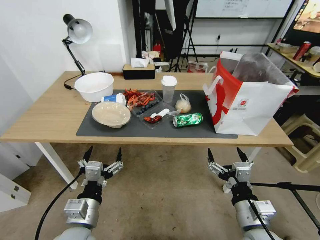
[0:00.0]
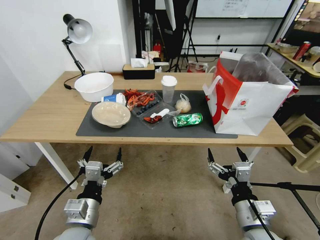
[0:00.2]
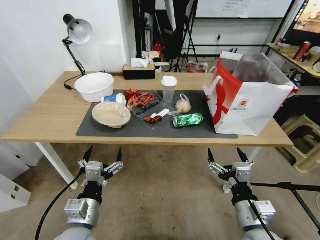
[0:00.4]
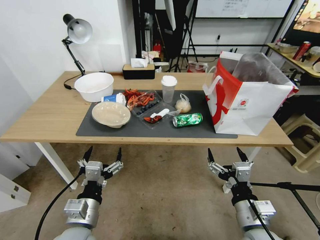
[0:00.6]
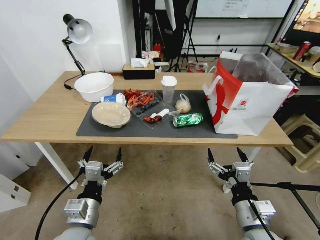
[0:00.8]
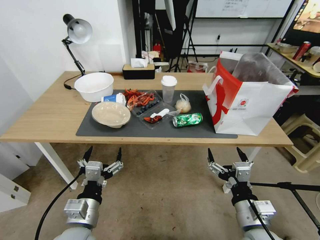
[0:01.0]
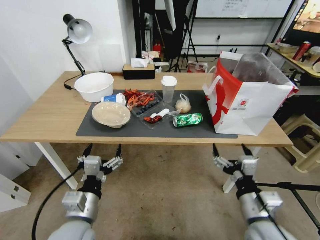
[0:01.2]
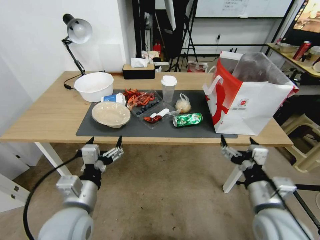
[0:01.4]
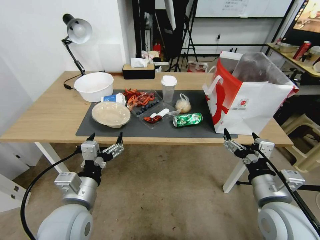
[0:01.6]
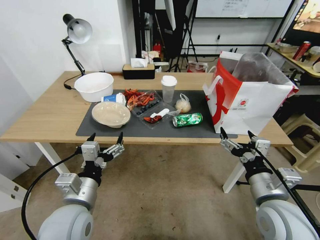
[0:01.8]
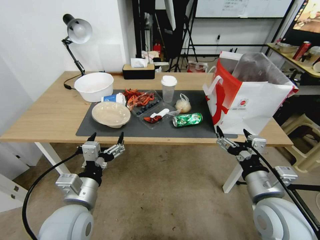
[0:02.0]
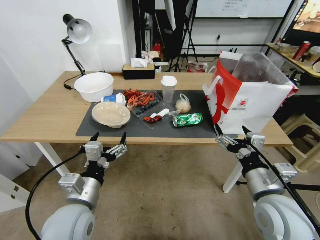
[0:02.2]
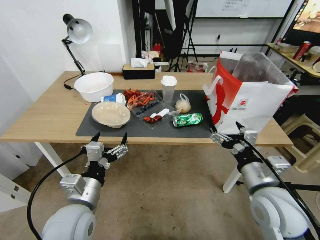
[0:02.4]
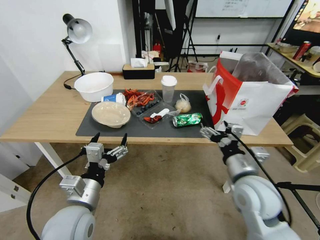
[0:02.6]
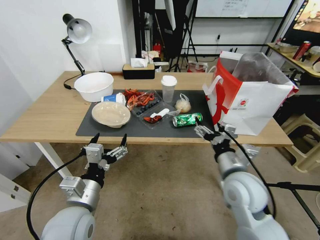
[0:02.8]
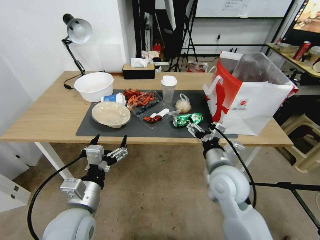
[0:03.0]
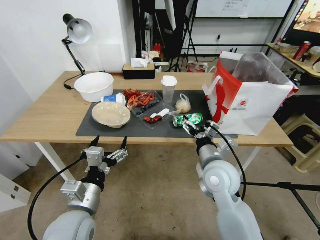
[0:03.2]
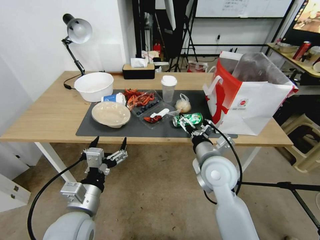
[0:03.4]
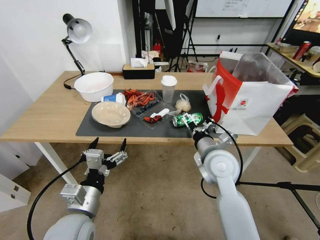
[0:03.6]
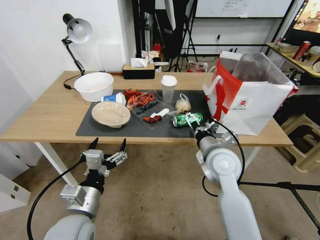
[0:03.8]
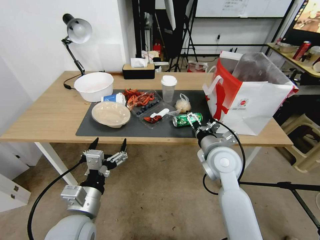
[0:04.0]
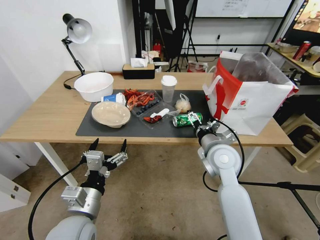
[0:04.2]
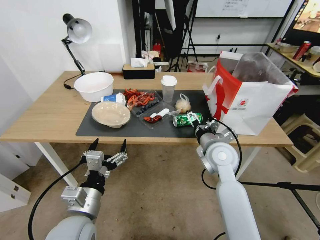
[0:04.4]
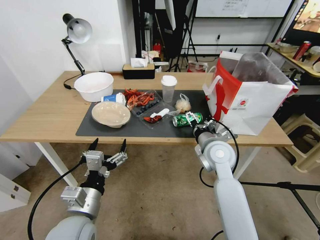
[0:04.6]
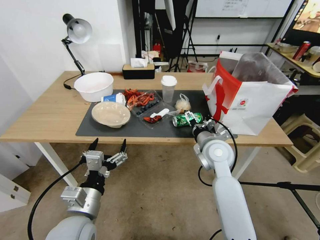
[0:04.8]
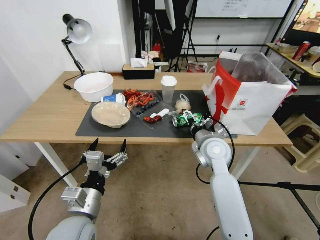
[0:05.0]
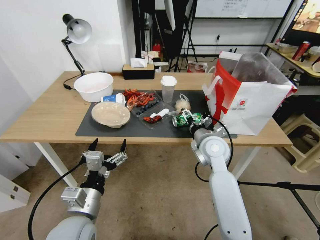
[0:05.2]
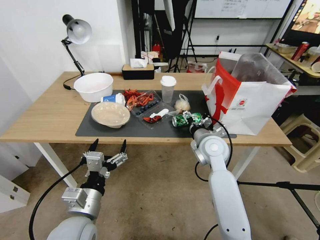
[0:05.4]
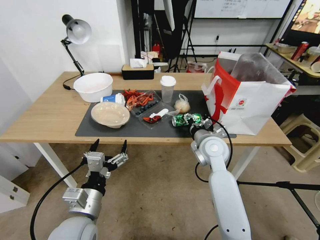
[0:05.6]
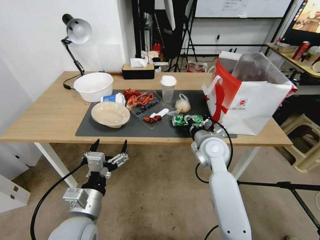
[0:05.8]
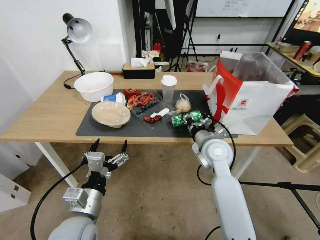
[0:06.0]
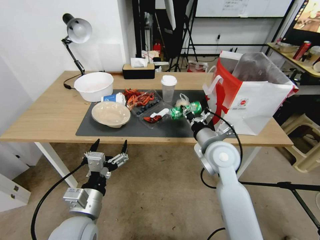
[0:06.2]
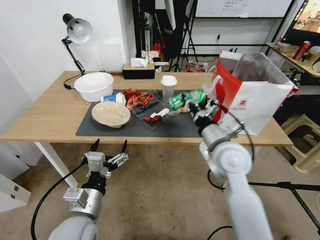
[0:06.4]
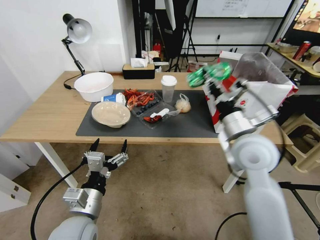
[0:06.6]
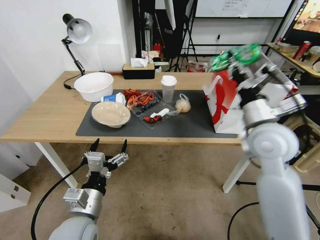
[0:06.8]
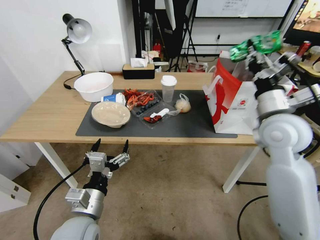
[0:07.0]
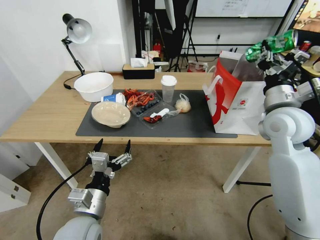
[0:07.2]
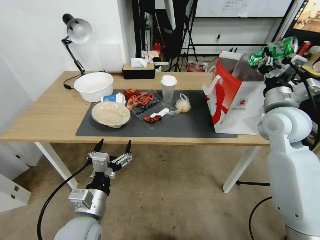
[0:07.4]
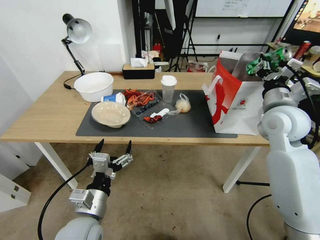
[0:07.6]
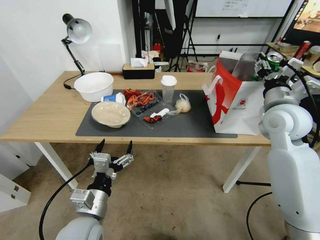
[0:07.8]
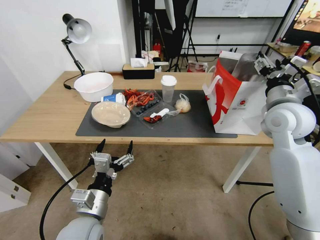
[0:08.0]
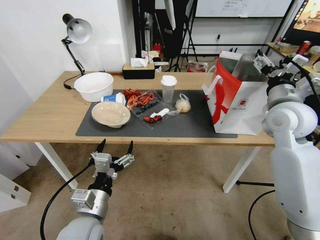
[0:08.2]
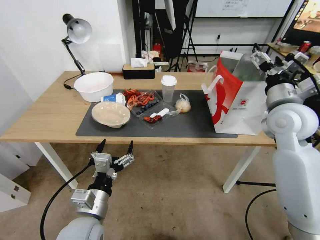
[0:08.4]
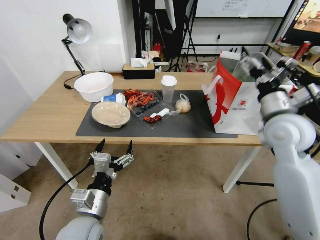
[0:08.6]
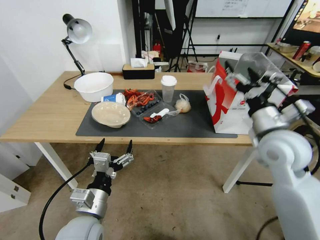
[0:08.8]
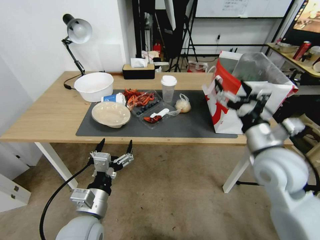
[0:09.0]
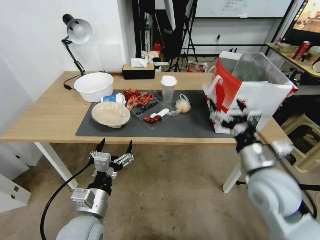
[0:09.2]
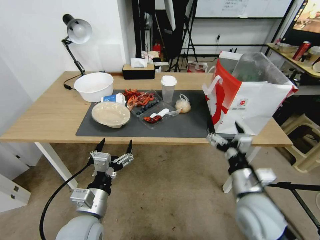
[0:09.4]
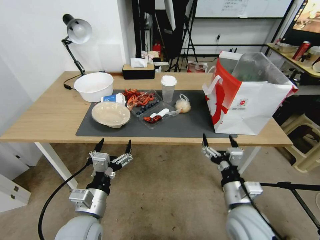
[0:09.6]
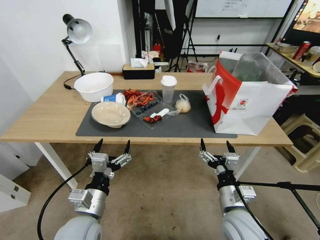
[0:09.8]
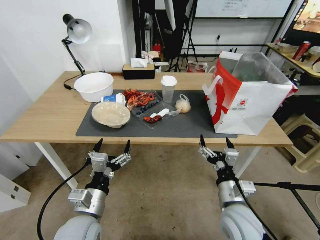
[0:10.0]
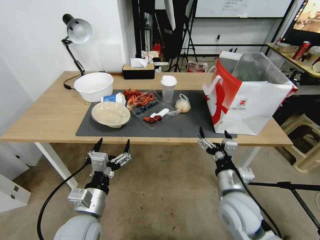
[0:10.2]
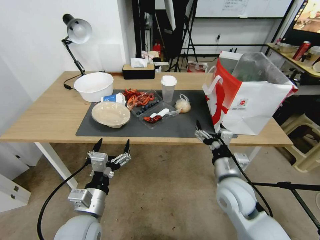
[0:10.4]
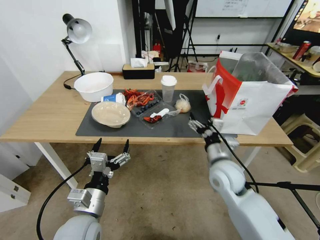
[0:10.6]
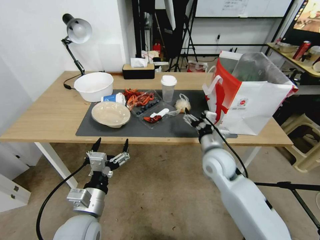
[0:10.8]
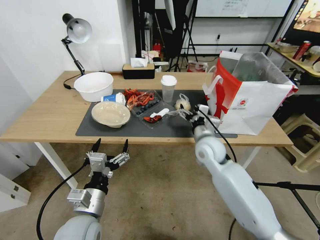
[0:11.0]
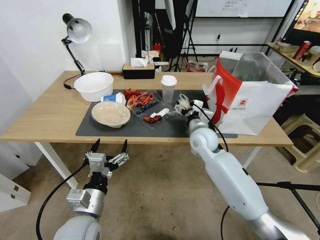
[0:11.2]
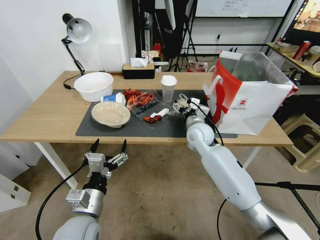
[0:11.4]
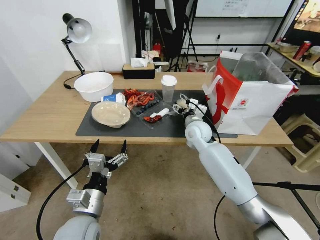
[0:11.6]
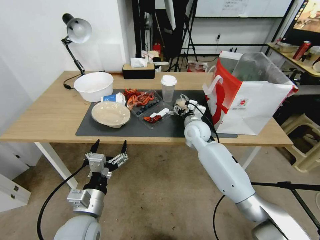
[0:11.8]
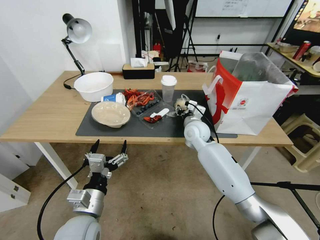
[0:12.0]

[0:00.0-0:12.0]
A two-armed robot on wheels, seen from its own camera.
0:01.6 to 0:03.0: The right gripper travels forward and to the left by roughly 15 cm.
0:03.0 to 0:04.4: The right gripper is displaced forward by roughly 10 cm.
0:04.4 to 0:06.0: The right gripper closes.
0:06.0 to 0:07.6: The right gripper shifts about 20 cm to the right and upward.
0:07.6 to 0:09.0: The right gripper heads backward, to the left and downward, covering about 15 cm, and opens up.
0:09.0 to 0:10.4: The right gripper is displaced downward and to the left by approximately 15 cm.
0:10.4 to 0:12.0: The right gripper moves forward, roughly 25 cm, and closes its fingers.

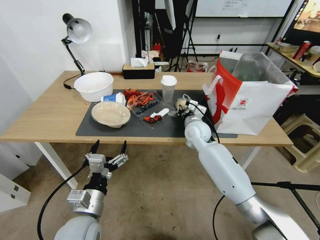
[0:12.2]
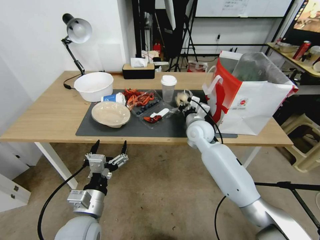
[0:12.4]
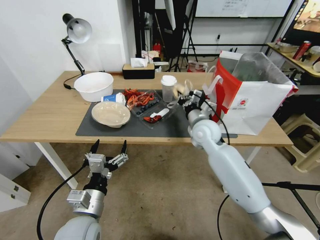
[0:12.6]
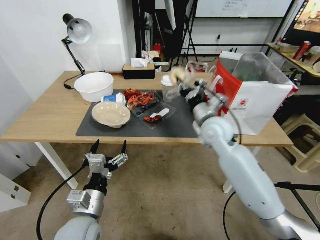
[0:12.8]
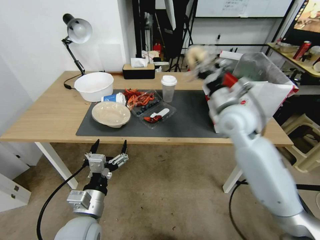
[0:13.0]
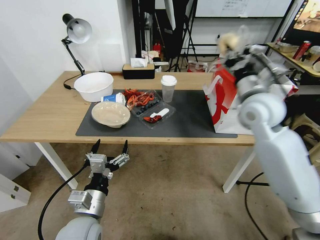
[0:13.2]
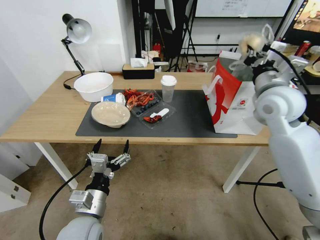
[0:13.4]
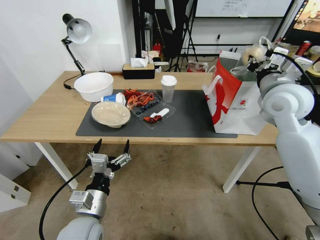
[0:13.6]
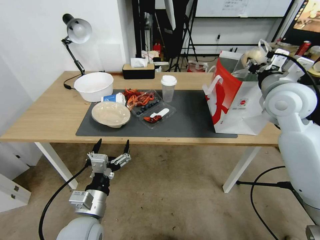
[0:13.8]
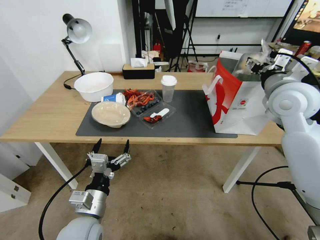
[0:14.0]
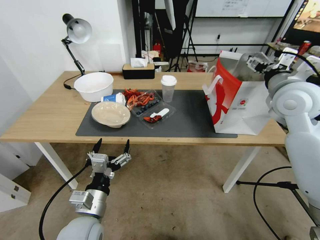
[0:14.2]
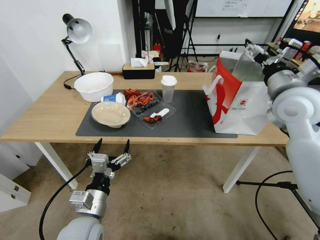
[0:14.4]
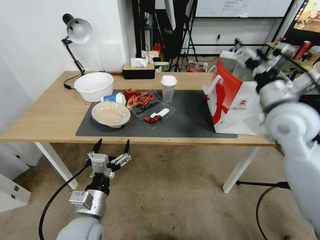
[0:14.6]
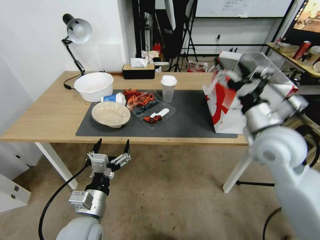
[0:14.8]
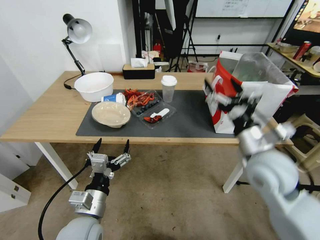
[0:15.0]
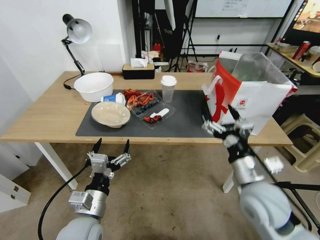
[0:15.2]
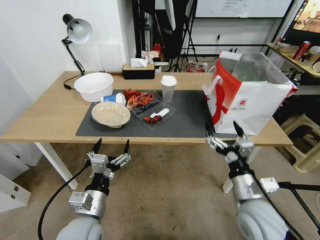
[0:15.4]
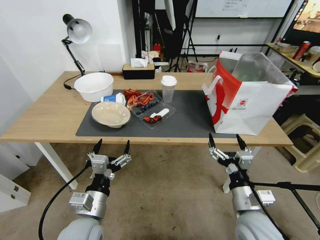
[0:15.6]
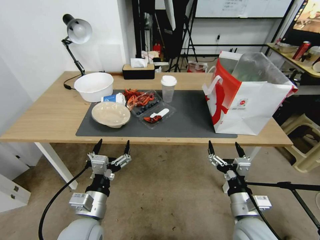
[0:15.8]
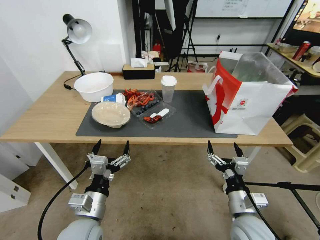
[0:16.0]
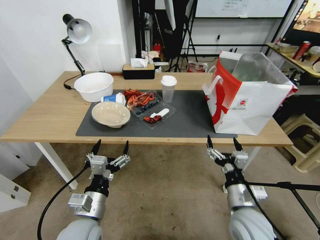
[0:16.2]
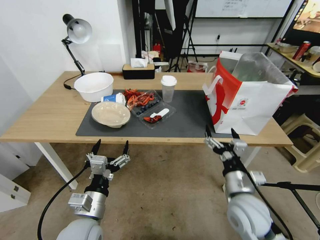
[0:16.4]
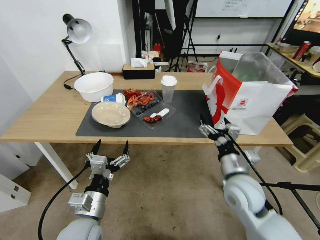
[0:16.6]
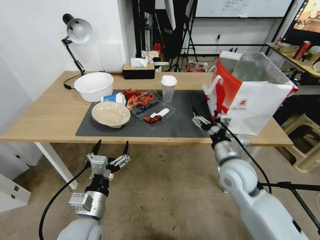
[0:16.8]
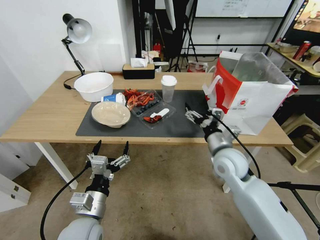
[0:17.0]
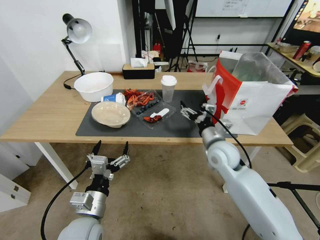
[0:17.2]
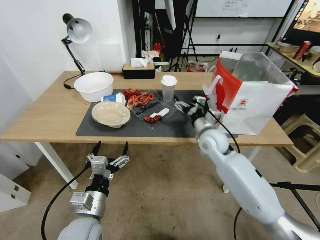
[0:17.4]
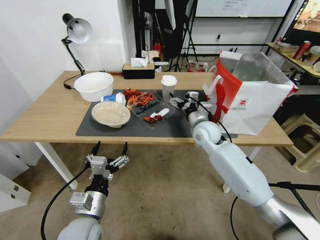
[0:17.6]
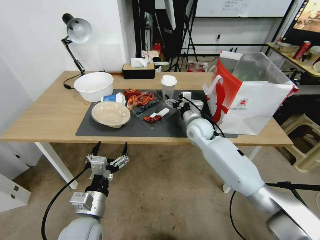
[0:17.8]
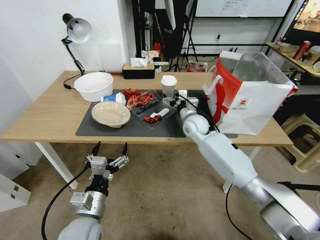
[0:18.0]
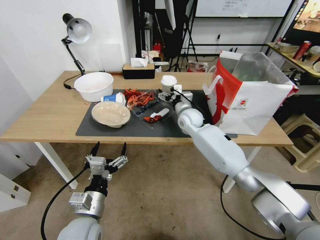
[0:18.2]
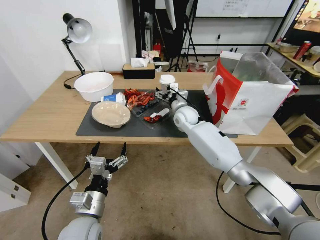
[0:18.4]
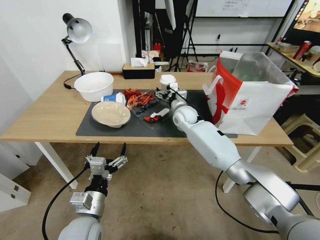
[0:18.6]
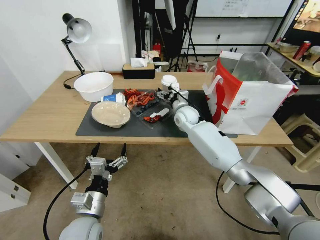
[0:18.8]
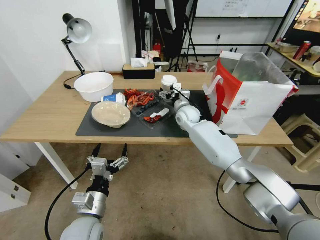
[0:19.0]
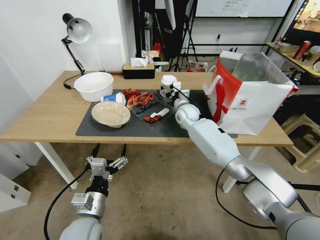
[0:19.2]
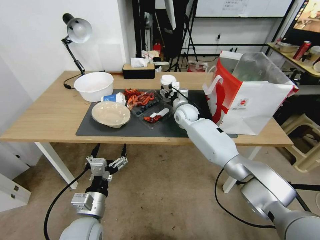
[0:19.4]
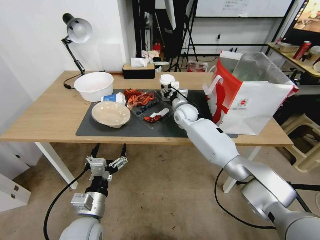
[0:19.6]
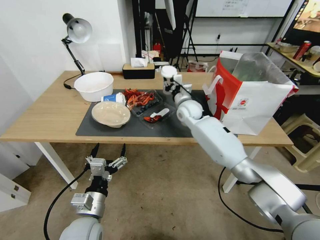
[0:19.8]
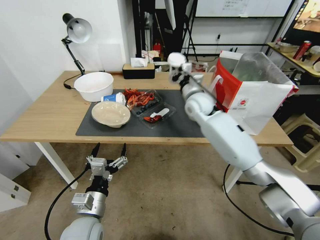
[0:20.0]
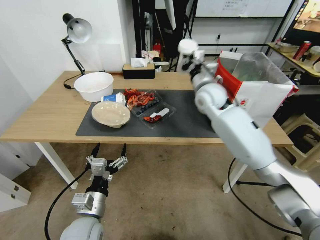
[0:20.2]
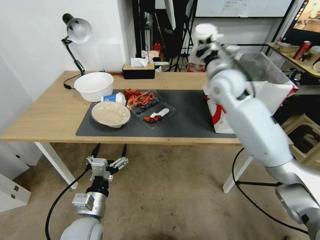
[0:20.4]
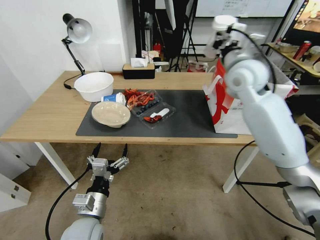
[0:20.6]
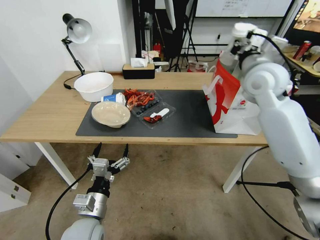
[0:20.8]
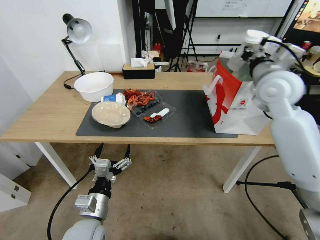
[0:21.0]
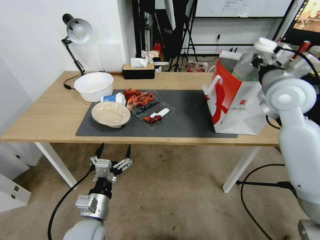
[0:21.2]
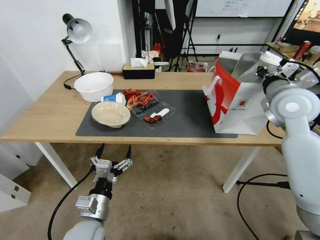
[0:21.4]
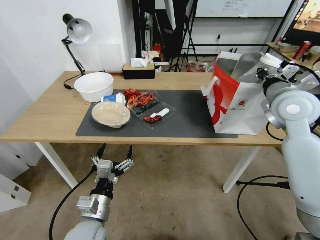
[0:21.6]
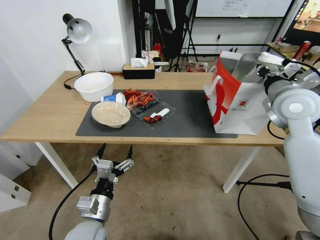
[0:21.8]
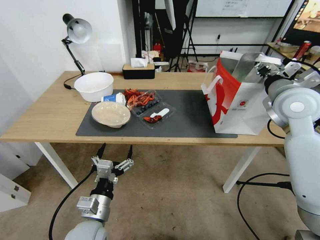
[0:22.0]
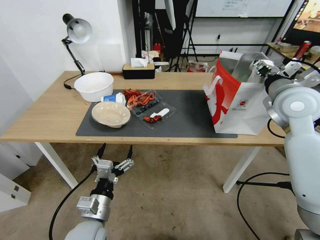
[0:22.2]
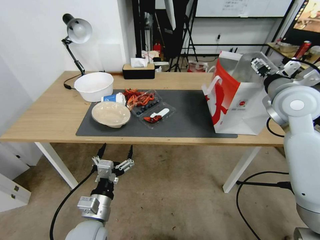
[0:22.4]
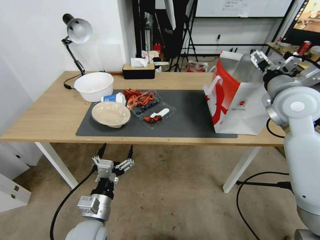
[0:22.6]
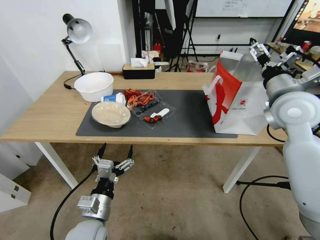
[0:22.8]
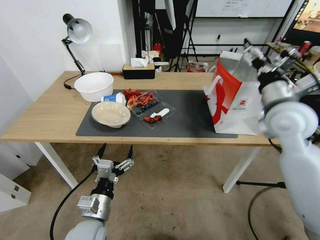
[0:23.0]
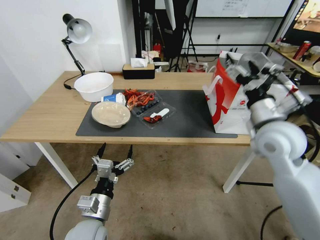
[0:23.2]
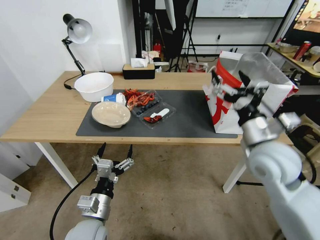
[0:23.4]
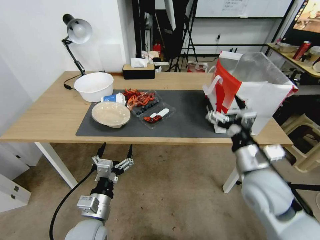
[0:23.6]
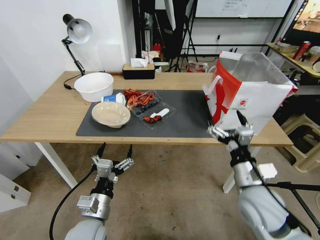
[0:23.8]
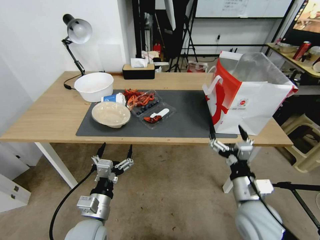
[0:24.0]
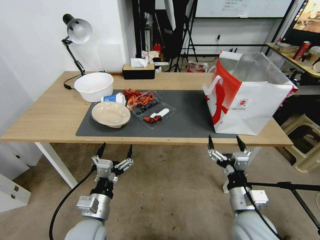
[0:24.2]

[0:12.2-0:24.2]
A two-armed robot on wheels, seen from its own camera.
0:12.2 to 0:13.8: The right gripper goes some 30 cm upward and to the right.
0:13.8 to 0:15.2: The right gripper shifts roughly 25 cm backward, downward and to the left, and opens up.
0:16.6 to 0:18.2: The right gripper is displaced forward by roughly 25 cm.
0:18.2 to 0:19.8: The right gripper closes.
0:19.8 to 0:21.2: The right gripper heads to the right, upward and backward, covering some 30 cm.
0:21.2 to 0:22.6: The right gripper opens up.
0:22.6 to 0:24.2: The right gripper is displaced downward and backward by approximately 35 cm.
